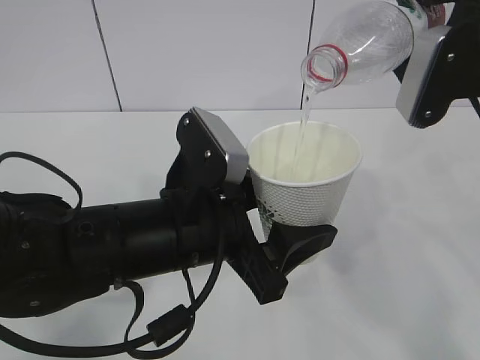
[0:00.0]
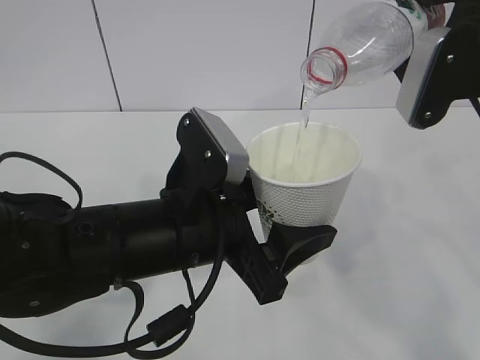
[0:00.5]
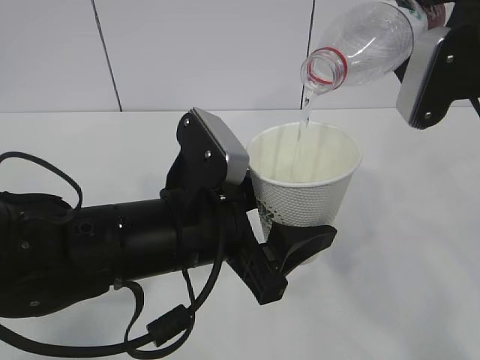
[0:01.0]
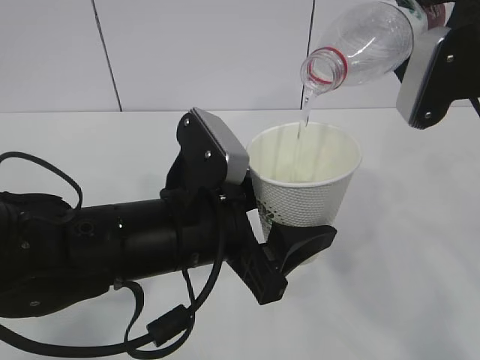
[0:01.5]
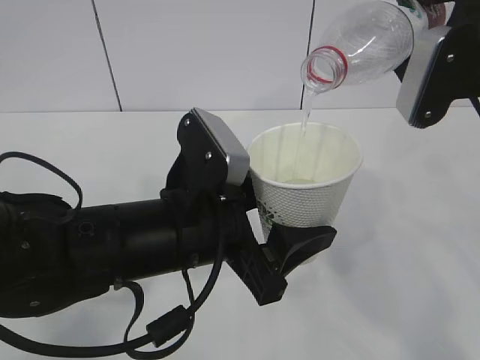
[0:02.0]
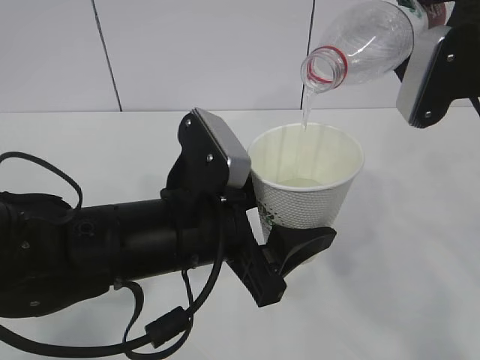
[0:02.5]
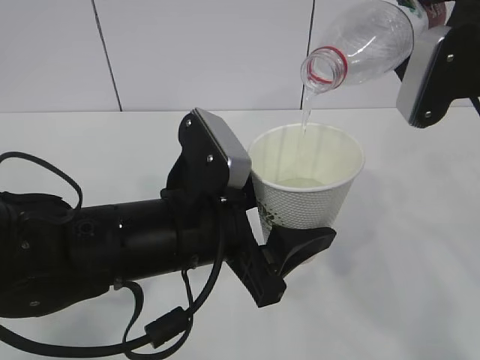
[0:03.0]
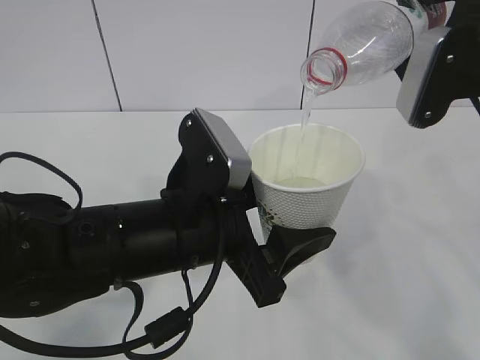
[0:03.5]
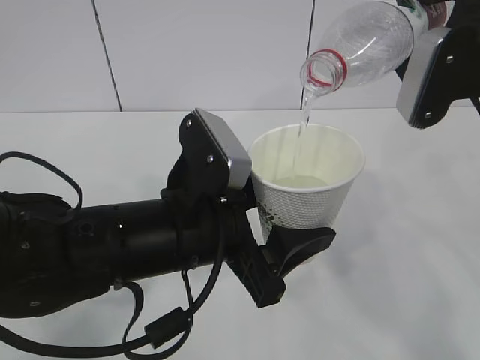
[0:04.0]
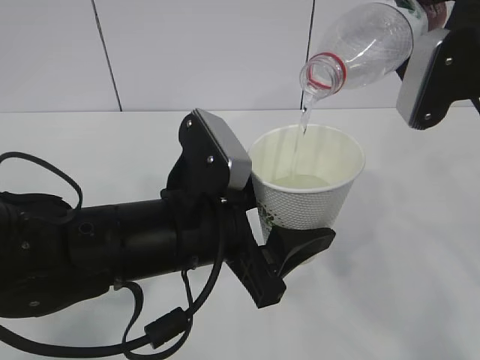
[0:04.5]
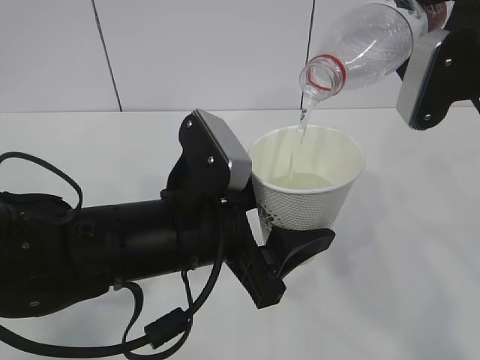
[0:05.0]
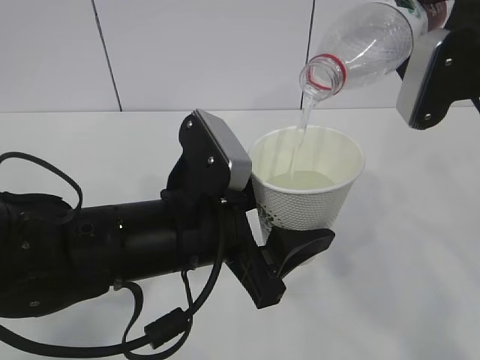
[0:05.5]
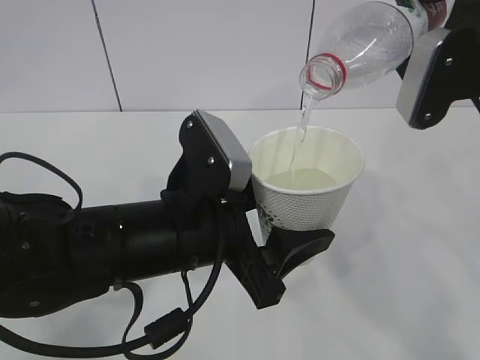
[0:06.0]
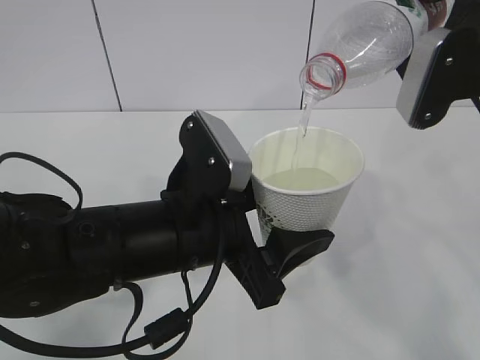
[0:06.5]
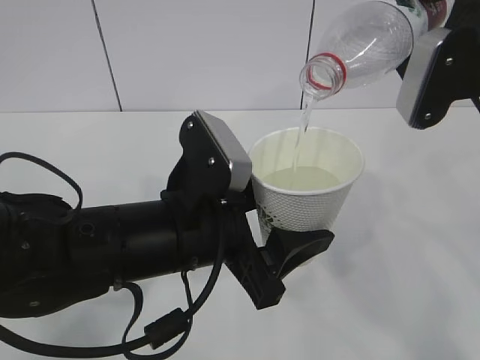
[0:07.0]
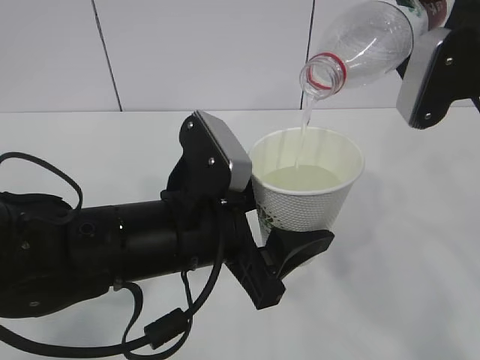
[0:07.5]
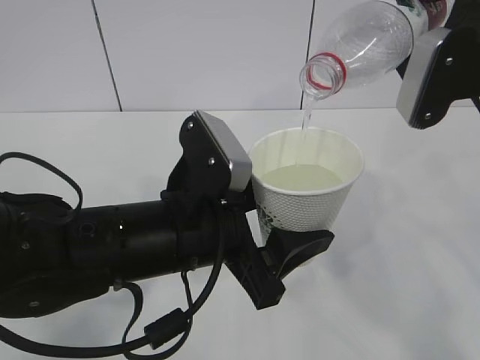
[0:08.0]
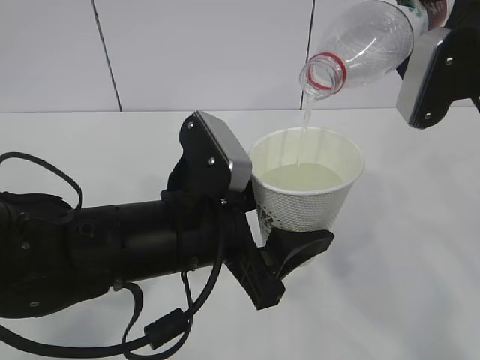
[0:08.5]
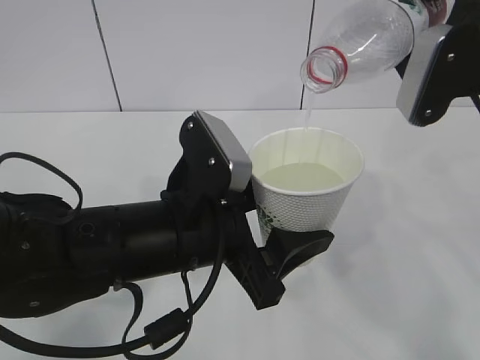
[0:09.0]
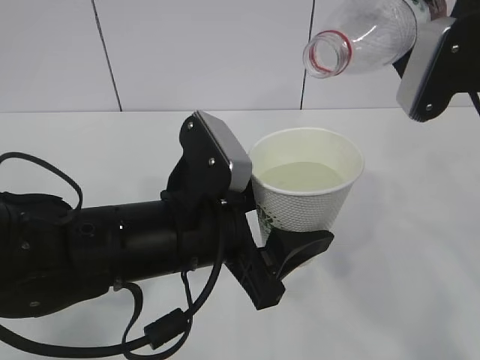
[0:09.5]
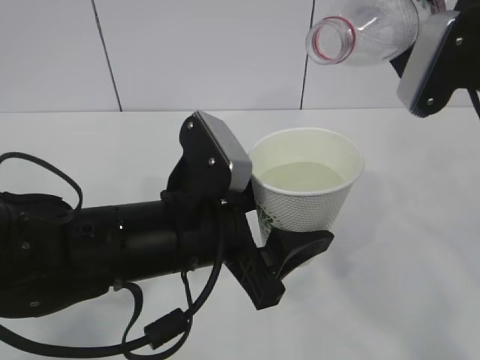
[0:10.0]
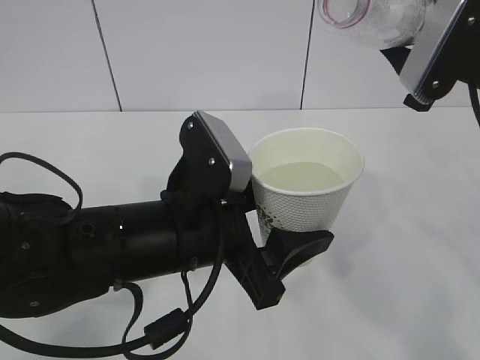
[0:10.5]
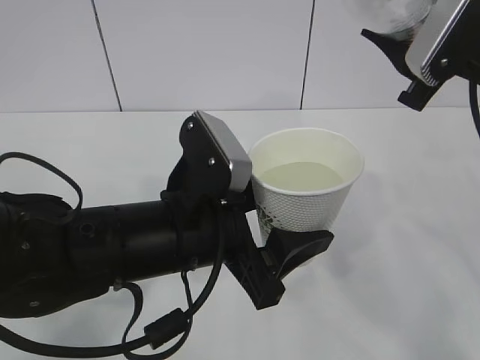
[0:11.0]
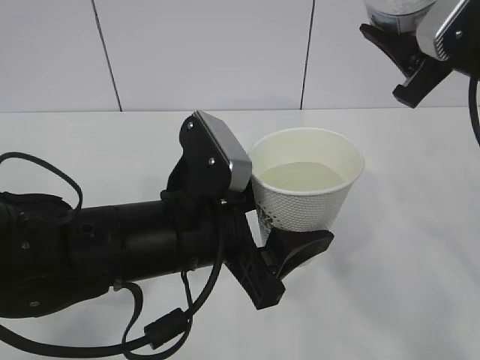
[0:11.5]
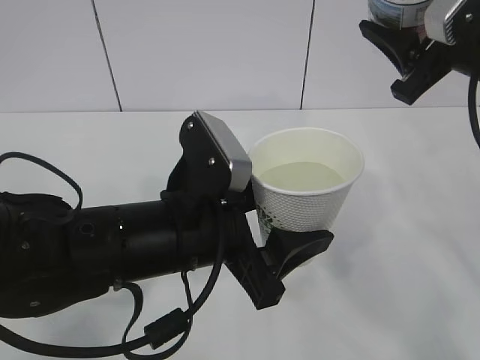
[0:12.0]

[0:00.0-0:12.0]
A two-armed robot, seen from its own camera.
0:00.0 to 0:08.0: The two grippers keep their place.
0:08.0 to 0:10.0: The grippers make only small movements.

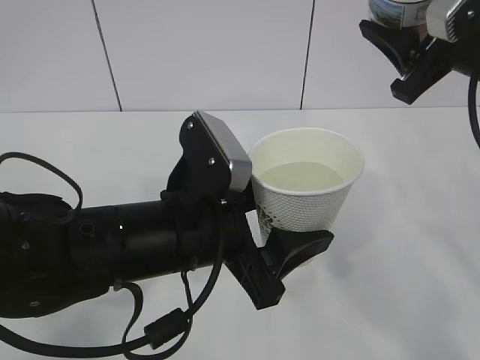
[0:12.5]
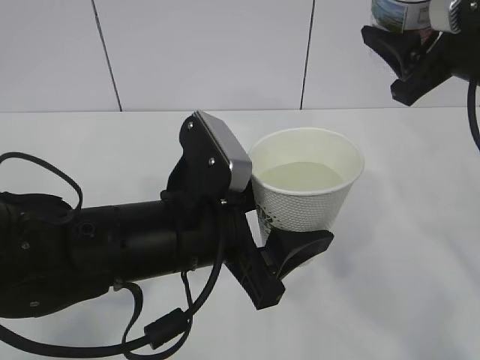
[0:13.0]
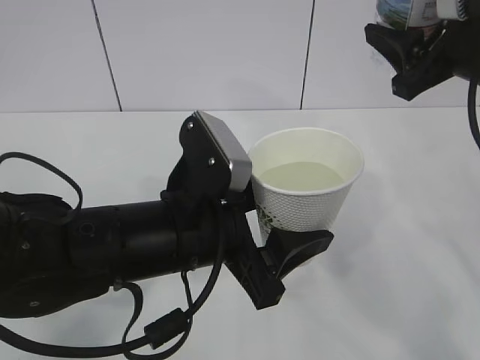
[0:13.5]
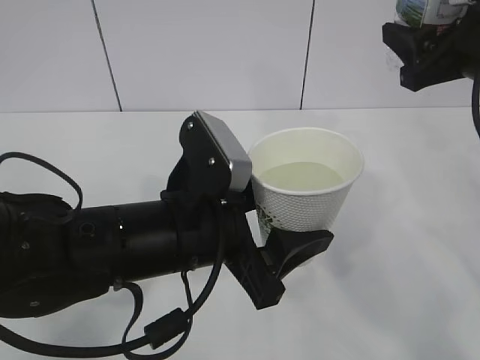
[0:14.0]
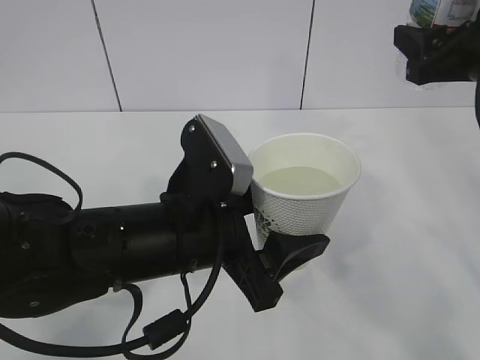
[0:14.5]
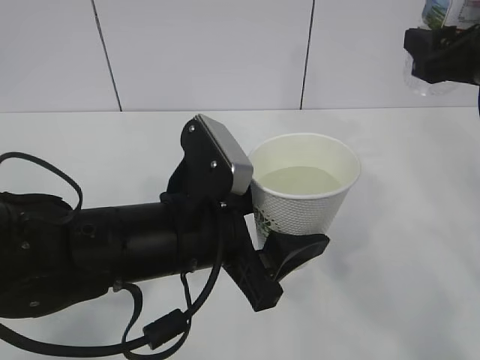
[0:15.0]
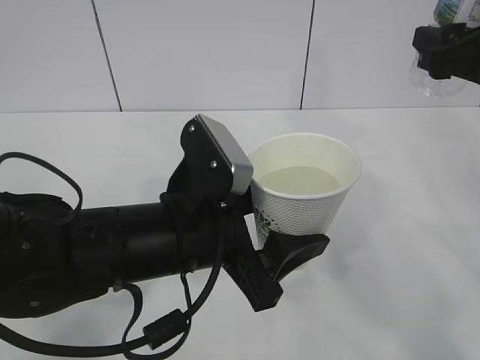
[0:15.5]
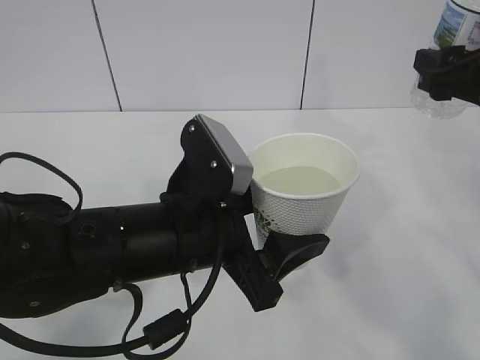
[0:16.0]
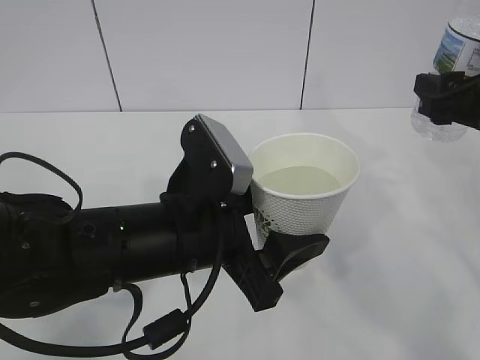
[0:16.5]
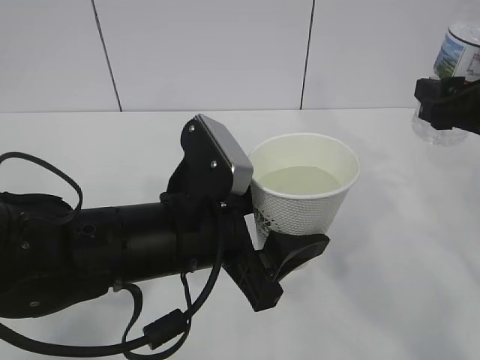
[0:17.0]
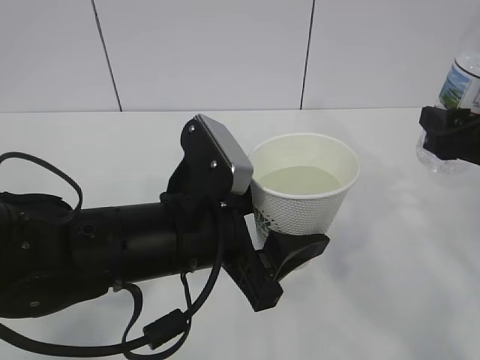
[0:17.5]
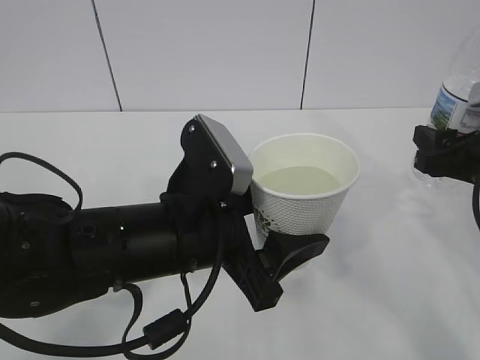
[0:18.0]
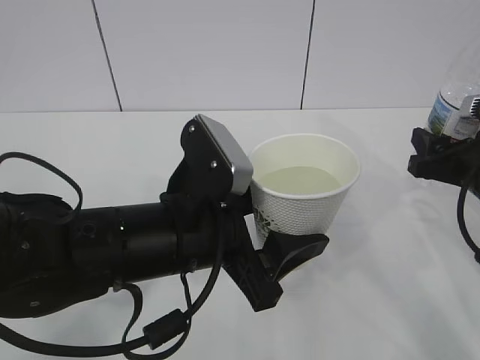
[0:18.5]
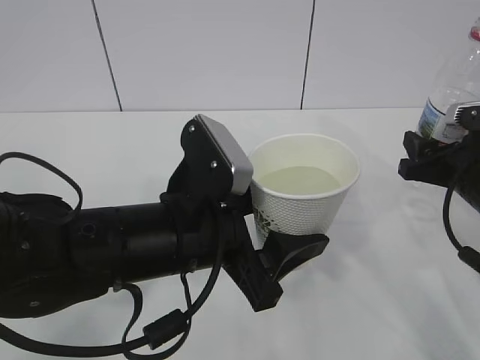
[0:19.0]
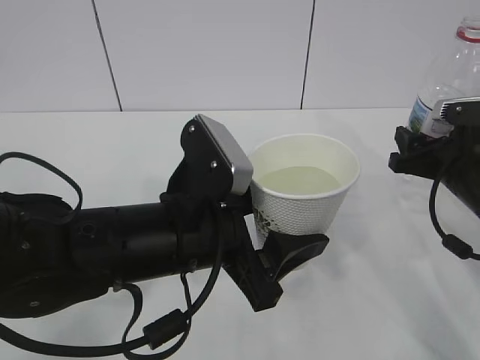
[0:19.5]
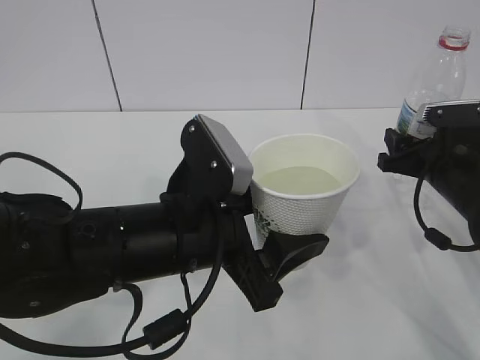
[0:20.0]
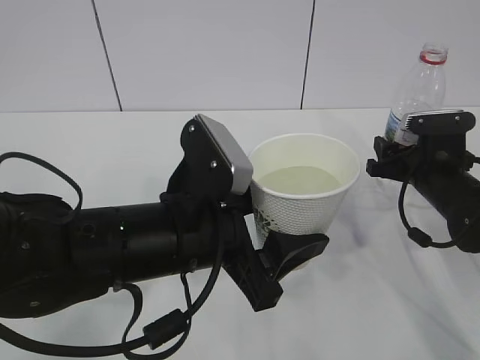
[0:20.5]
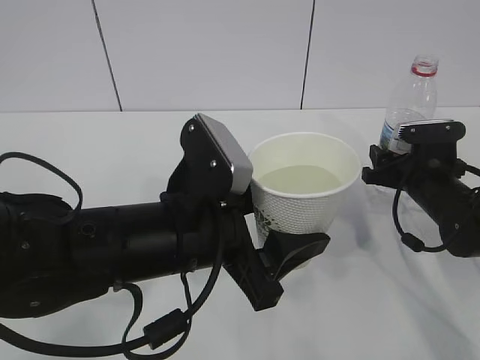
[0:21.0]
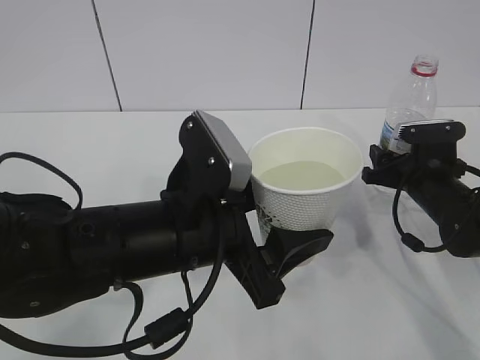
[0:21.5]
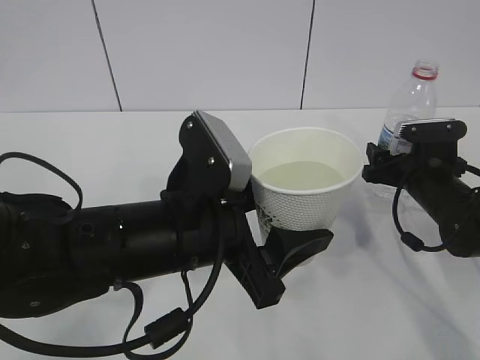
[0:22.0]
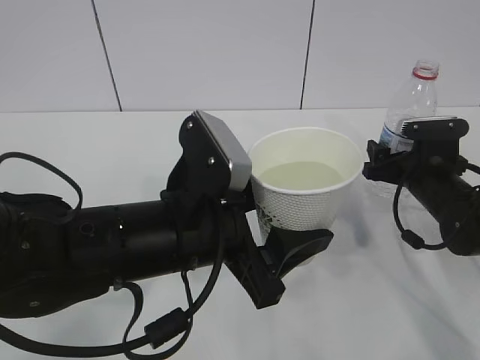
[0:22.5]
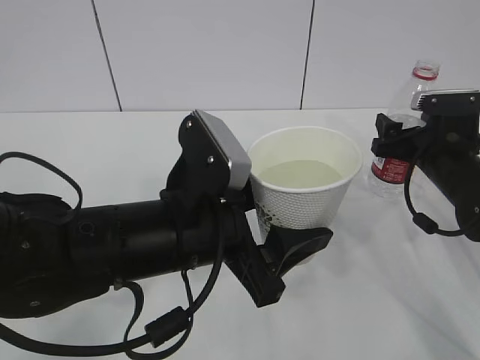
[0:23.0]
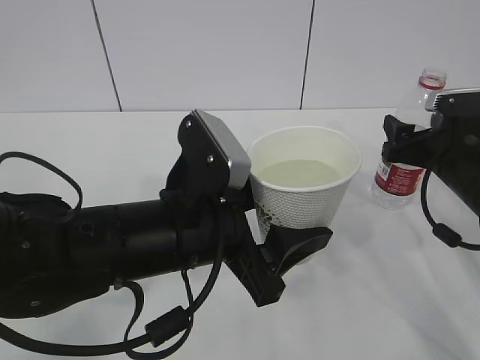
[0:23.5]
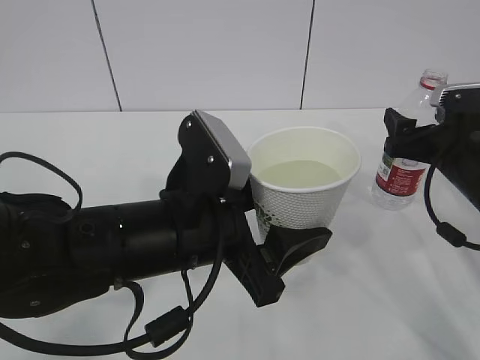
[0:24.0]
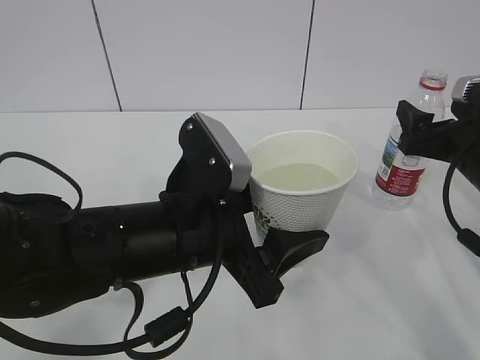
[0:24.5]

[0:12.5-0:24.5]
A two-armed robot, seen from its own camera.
0:14.5 to 0:16.5: The grippers make only small movements.
0:16.5 to 0:18.5: The right gripper is displaced downward by some 10 cm.
0:18.5 to 0:20.5: The right gripper travels forward and downward by roughly 10 cm.
0:20.5 to 0:22.5: The right gripper opens.
0:22.5 to 0:24.5: The right gripper shifts roughly 10 cm upward and backward.

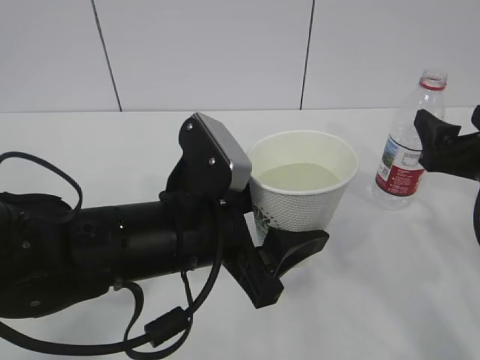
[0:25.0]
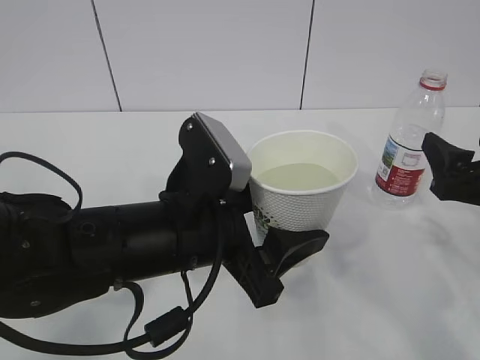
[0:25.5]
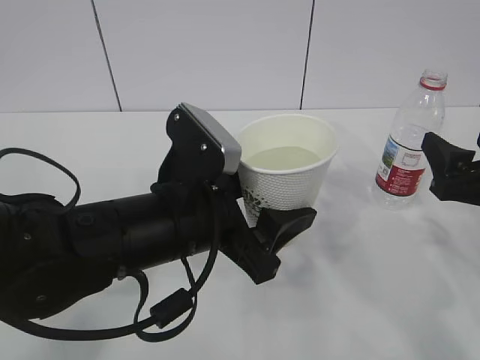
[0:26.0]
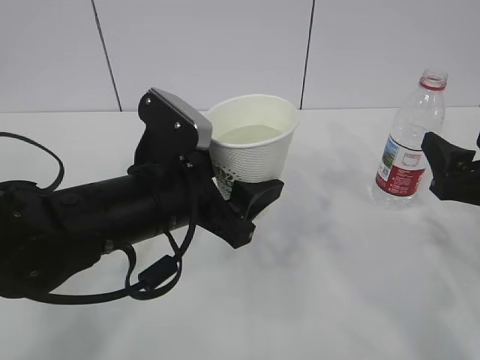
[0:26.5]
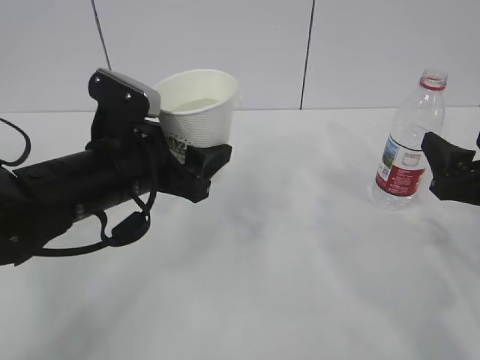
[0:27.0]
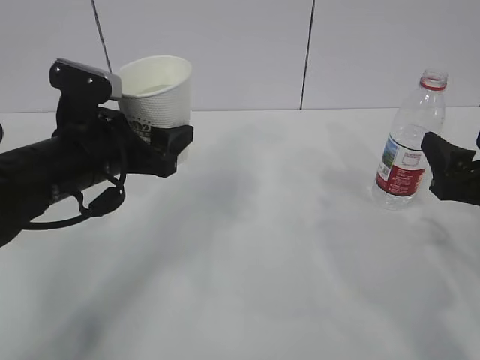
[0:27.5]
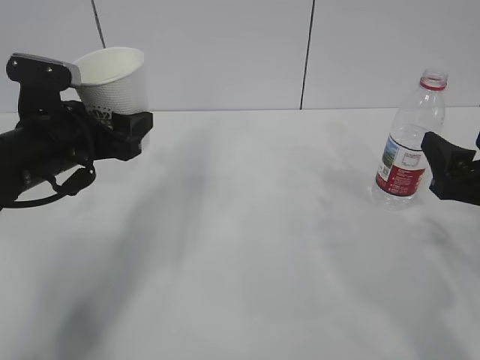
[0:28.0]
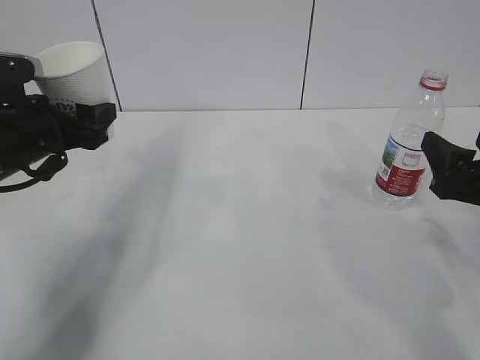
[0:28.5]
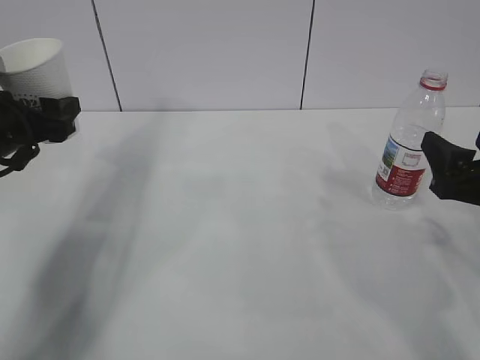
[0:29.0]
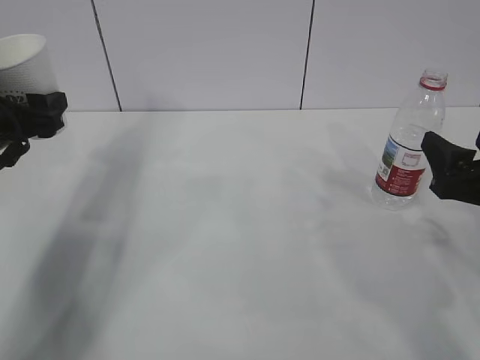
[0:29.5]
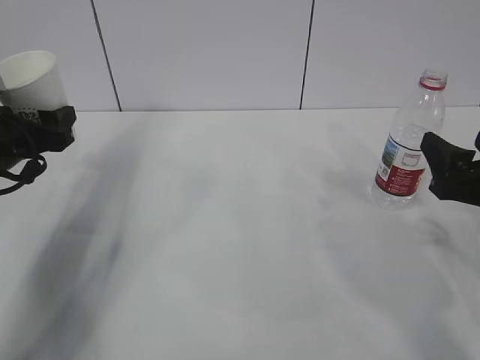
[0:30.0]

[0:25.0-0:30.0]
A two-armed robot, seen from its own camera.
0:25.0 to 0:27.5: The left gripper goes about 15 cm to the left and forward.
0:27.5 to 0:30.0: The left gripper travels to the left by approximately 15 cm.
